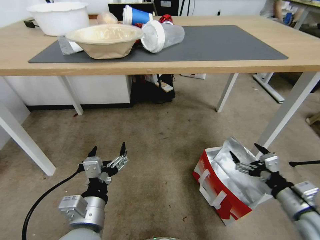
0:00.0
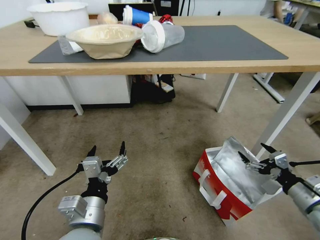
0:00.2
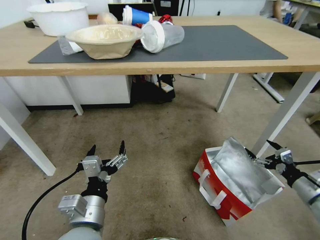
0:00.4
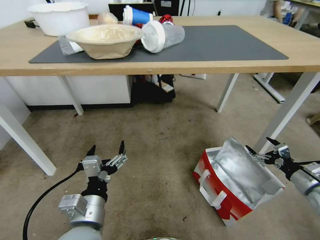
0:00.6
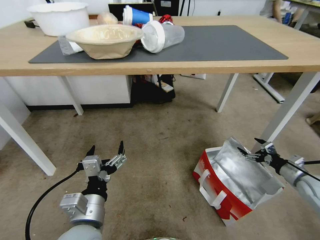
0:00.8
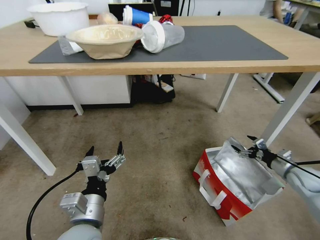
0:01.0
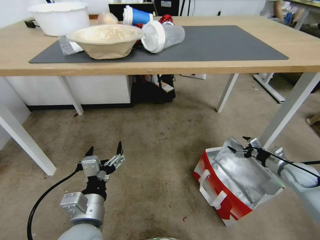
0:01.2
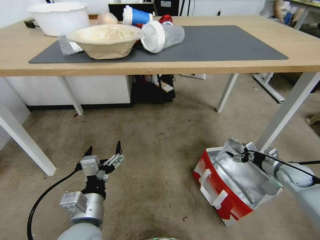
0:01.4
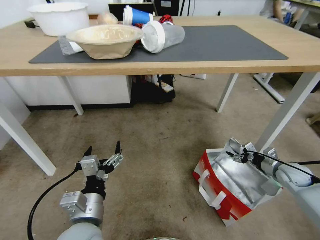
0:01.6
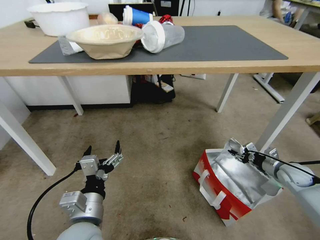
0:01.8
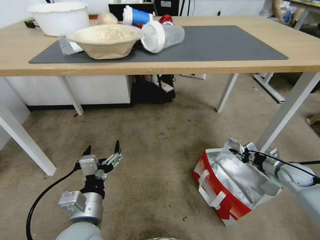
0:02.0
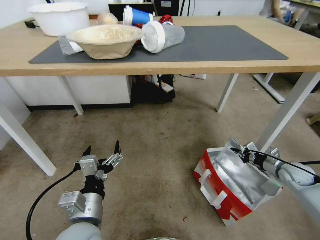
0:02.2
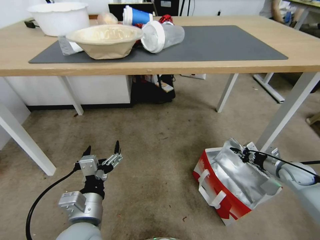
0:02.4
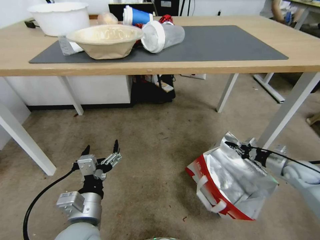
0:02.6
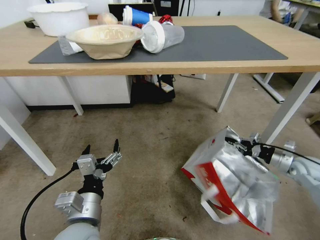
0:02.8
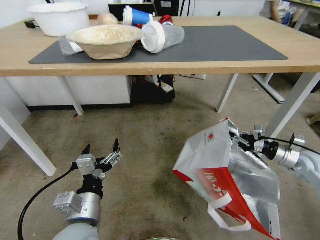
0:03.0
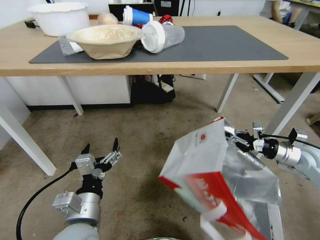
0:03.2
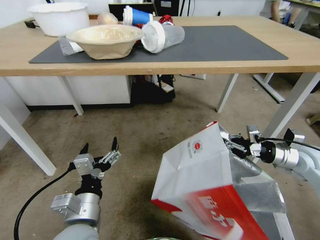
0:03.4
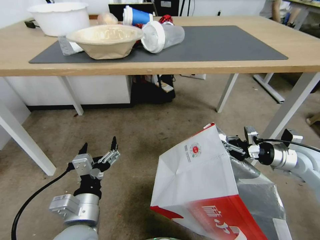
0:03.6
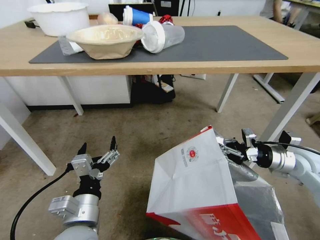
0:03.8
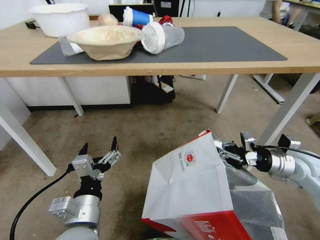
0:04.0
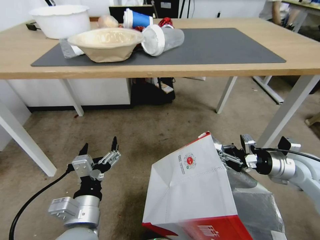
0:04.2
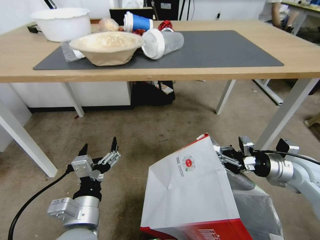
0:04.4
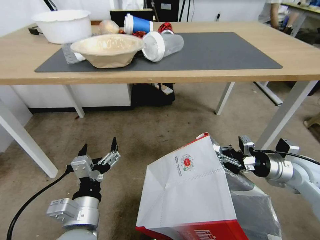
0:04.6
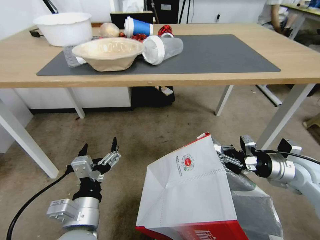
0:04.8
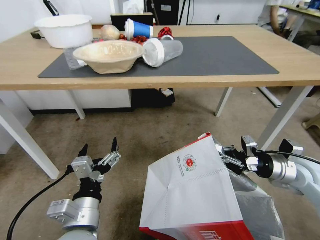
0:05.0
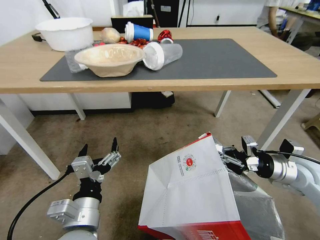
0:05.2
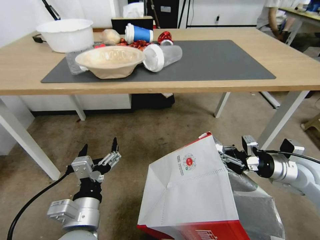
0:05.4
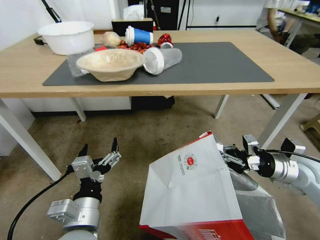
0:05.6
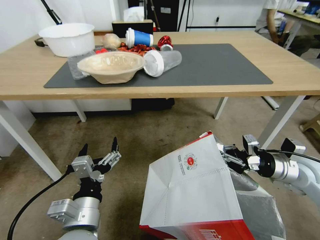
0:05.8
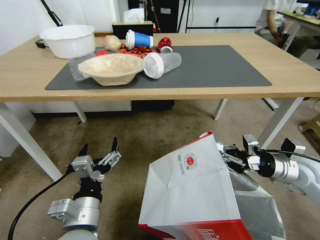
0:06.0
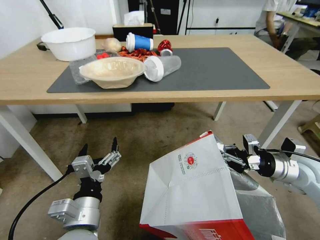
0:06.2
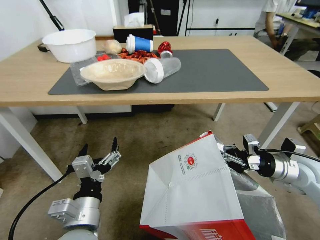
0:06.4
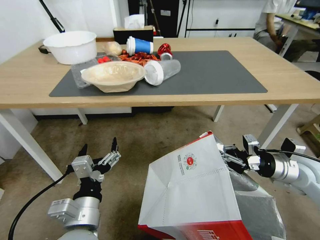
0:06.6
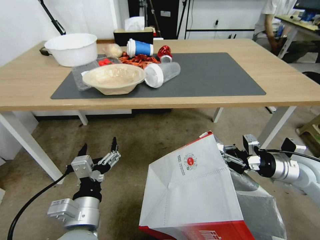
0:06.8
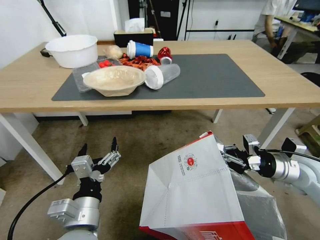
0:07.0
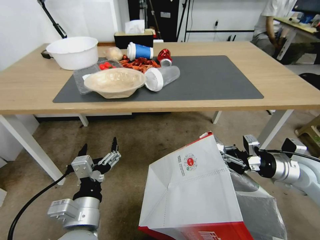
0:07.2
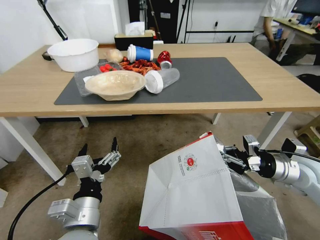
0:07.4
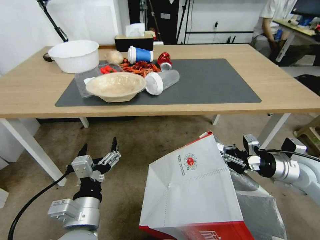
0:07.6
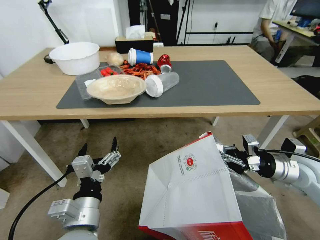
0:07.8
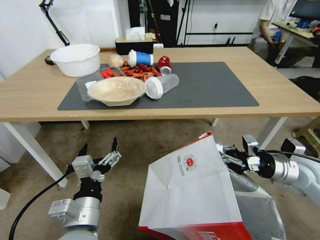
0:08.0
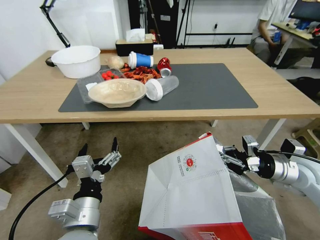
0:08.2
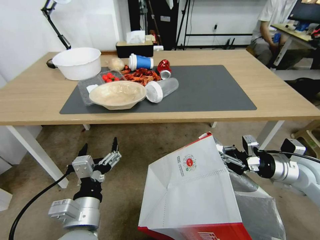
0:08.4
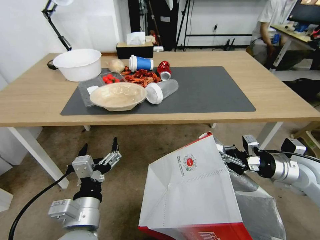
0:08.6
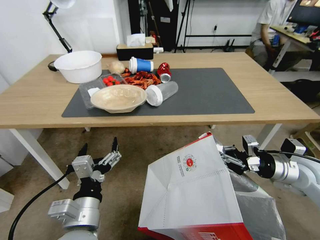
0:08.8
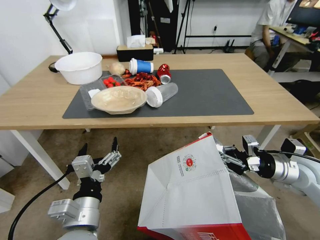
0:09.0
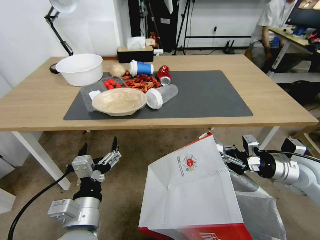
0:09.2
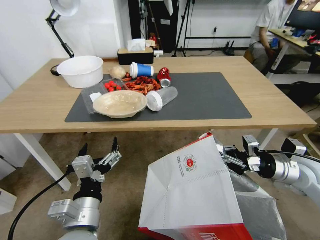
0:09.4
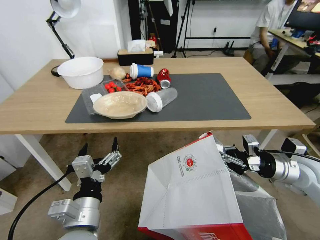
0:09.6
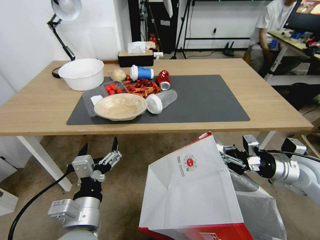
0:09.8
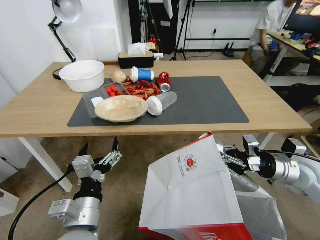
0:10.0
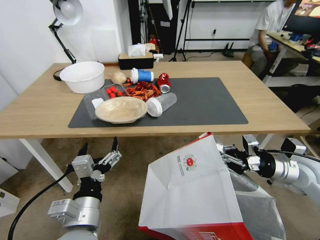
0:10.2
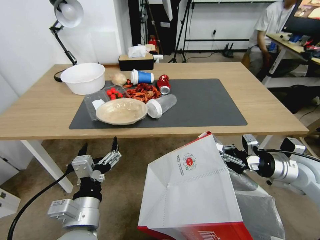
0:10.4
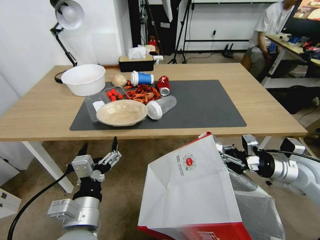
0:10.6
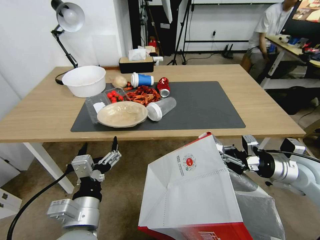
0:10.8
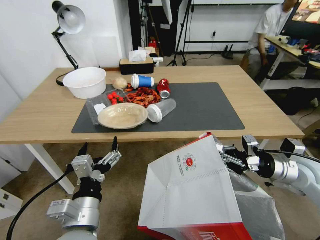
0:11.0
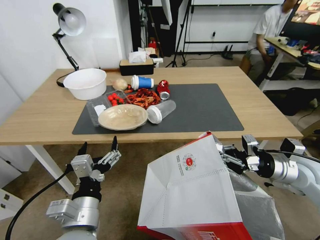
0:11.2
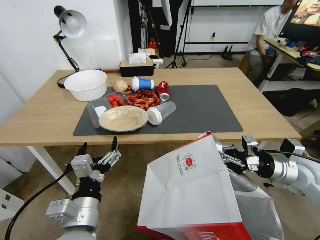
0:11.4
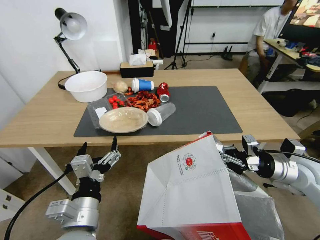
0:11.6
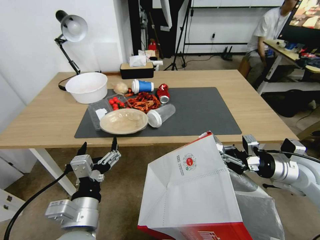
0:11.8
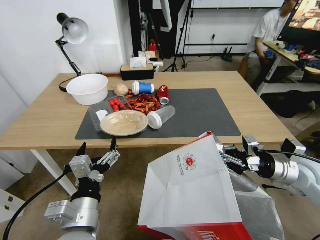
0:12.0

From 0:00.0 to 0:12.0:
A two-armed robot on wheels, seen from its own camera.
Task of the whole recording: Pick up the food delivery bag from the floor and place it on the table.
From 0:00.0 to 0:01.6: The right gripper goes some 25 cm forward, to the right and downward.
From 0:01.6 to 0:03.0: The right gripper is displaced upward by about 10 cm, and closes its fingers.
From 0:03.0 to 0:04.4: The right gripper is displaced to the left by approximately 10 cm.

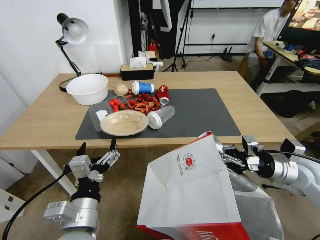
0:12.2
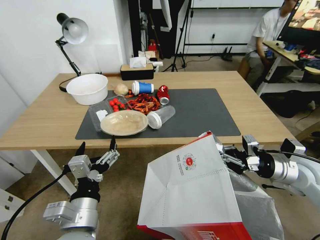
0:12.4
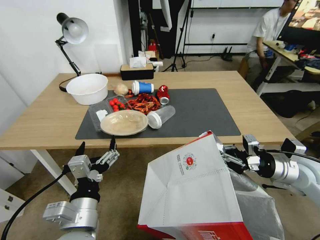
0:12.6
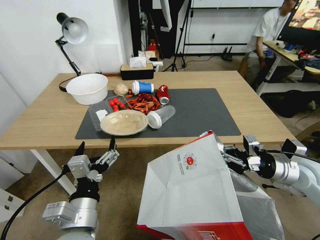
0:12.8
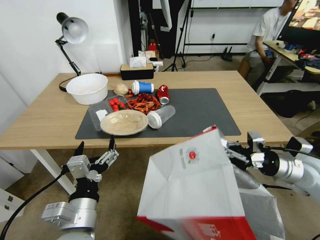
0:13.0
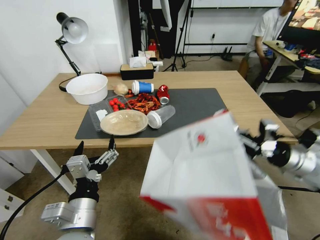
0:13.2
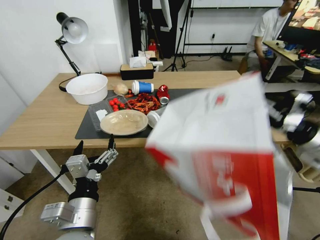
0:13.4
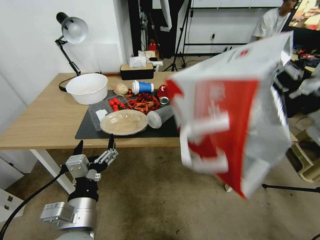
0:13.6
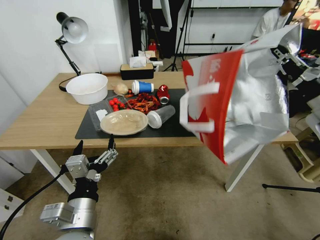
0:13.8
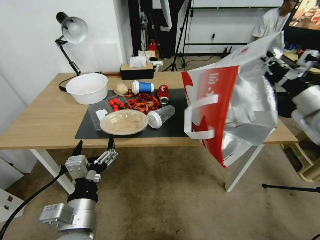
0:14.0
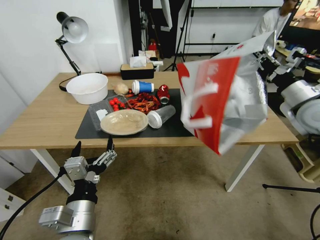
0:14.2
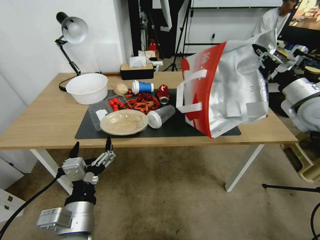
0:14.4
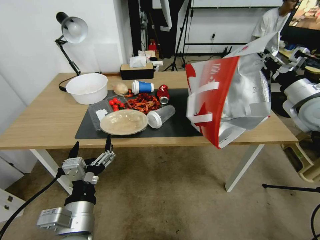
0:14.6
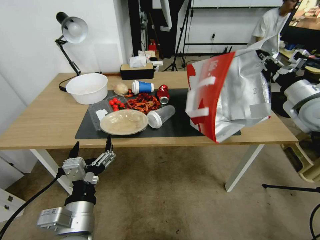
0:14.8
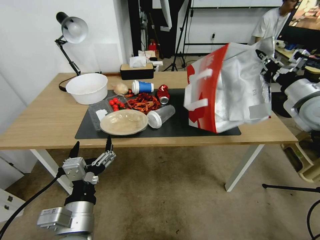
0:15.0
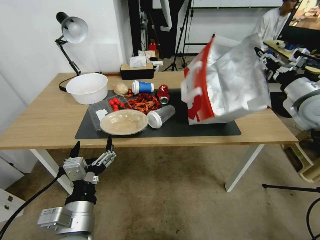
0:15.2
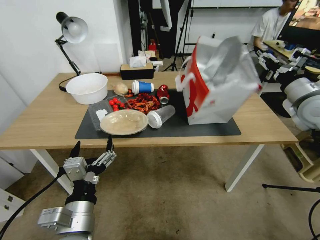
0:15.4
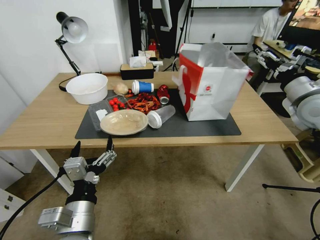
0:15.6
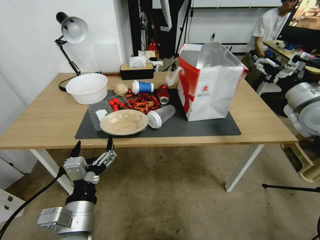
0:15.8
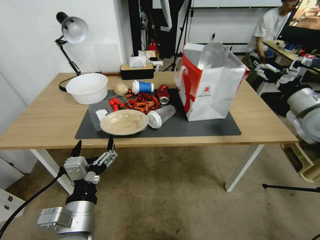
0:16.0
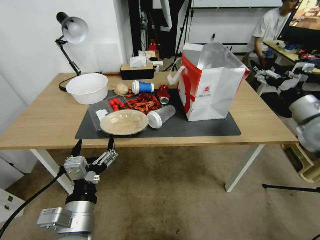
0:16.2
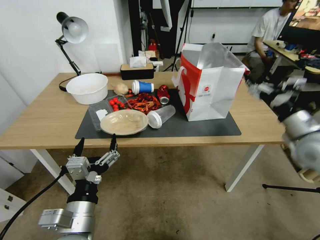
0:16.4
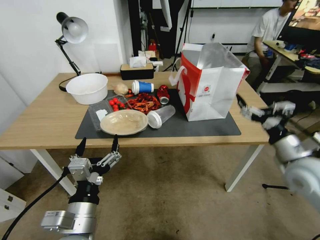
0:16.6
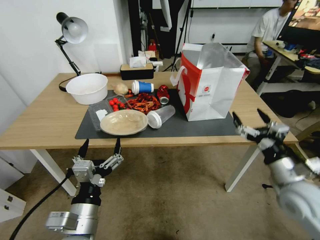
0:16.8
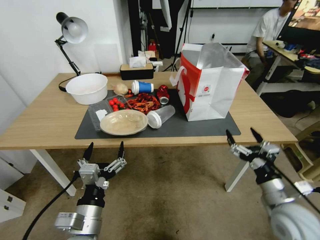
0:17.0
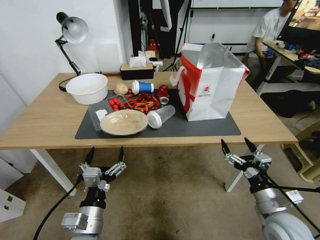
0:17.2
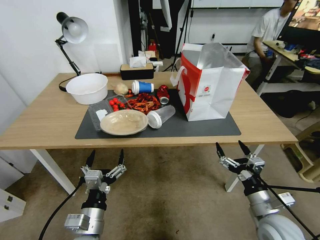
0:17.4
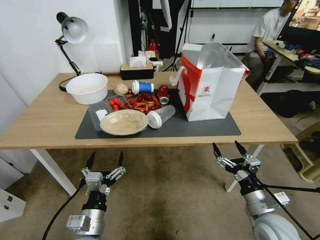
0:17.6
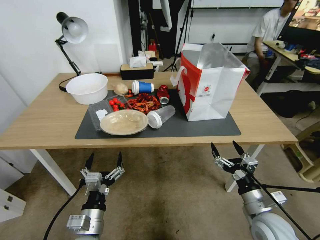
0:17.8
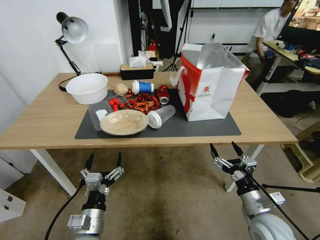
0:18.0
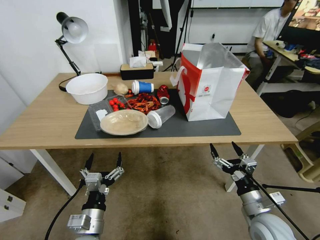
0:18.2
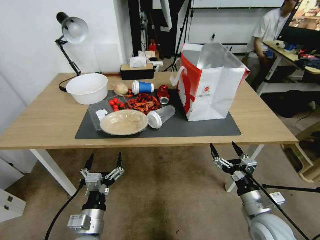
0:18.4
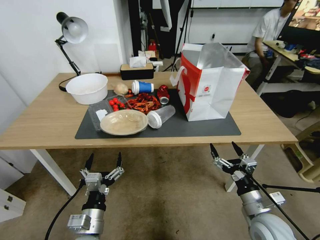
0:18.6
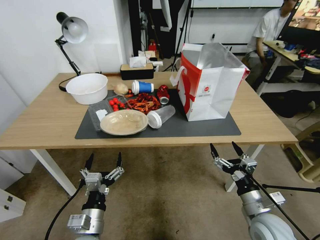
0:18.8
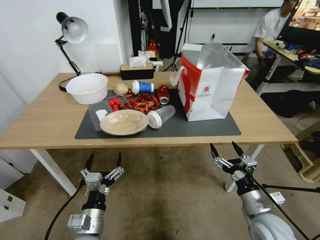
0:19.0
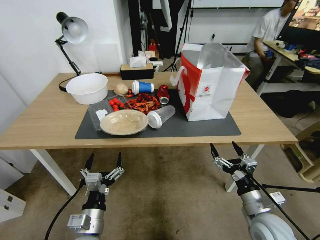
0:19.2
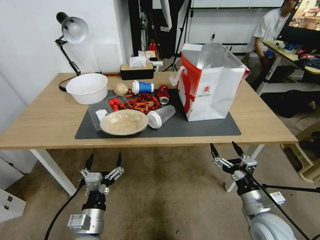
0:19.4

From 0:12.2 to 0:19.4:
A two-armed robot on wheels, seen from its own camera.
Task of the whole recording: Pick up the food delivery bag from the floor and place it on the table.
From 0:12.2 to 0:13.6: The right gripper travels upward by about 15 cm.
From 0:13.6 to 0:15.0: The right gripper moves forward, some 10 cm.
From 0:15.0 to 0:16.6: The right gripper is displaced backward and downward by about 15 cm, and opens.
From 0:16.6 to 0:18.0: The left gripper is displaced downward by some 10 cm; the right gripper moves downward, backward and to the left, roughly 20 cm.
From 0:18.0 to 0:19.4: Both grippers stay about where they are.
